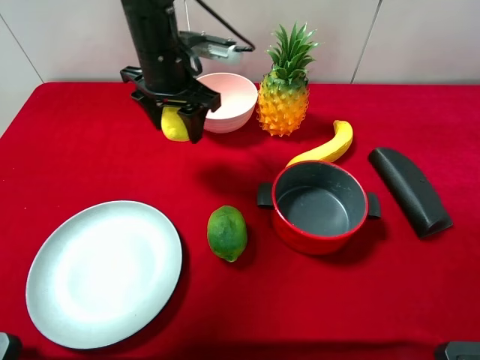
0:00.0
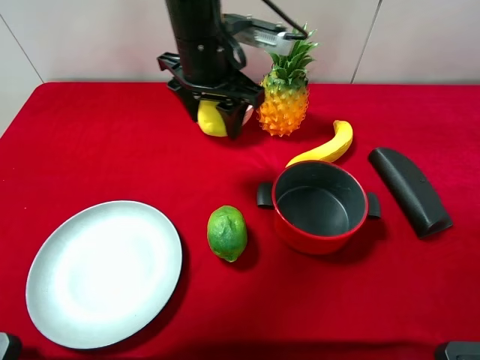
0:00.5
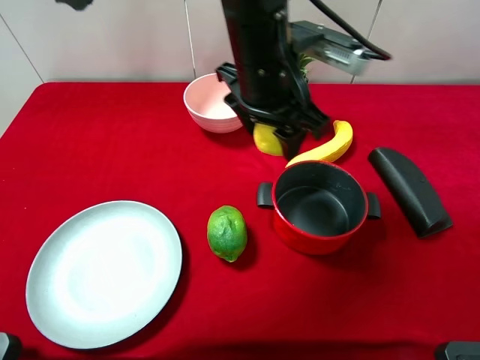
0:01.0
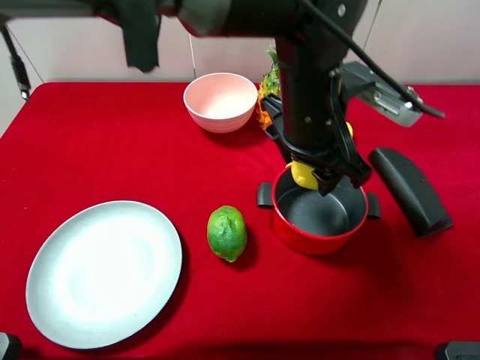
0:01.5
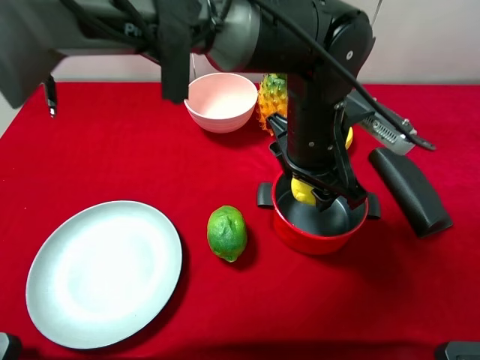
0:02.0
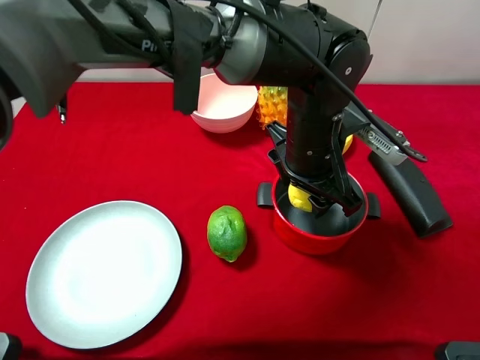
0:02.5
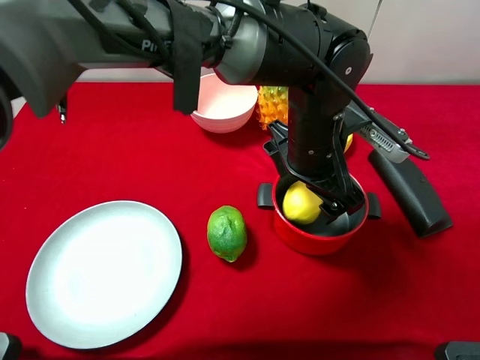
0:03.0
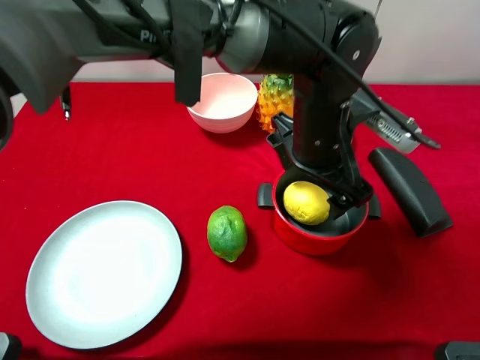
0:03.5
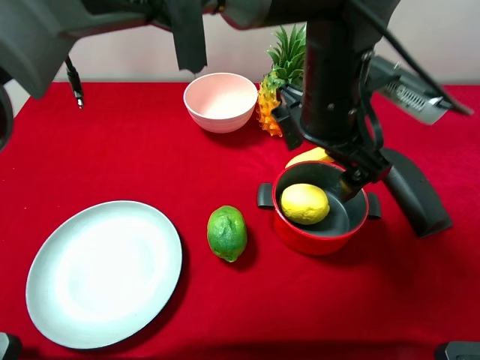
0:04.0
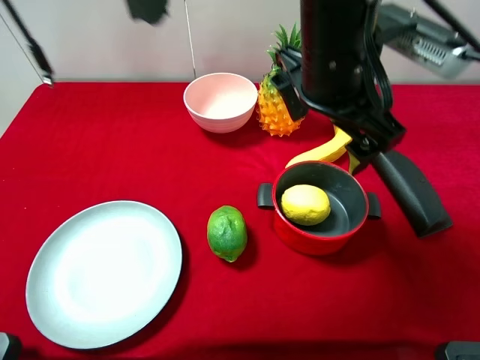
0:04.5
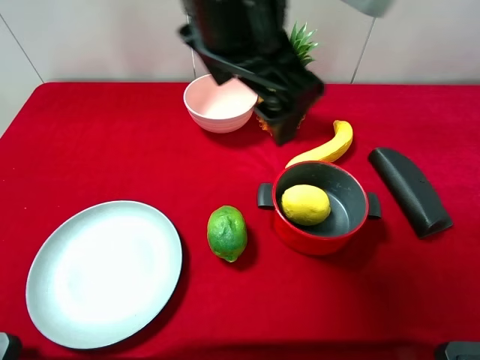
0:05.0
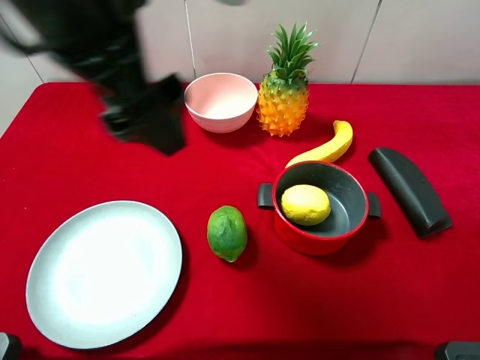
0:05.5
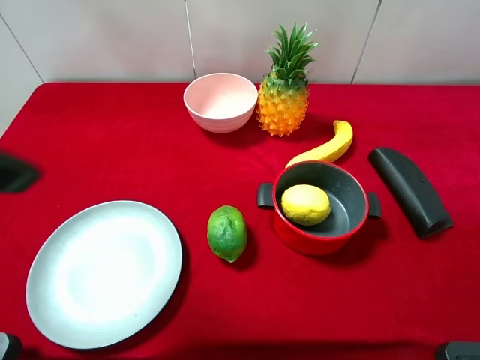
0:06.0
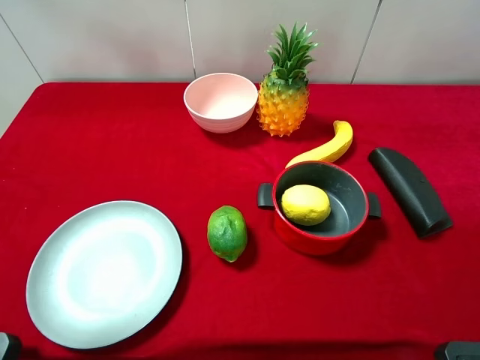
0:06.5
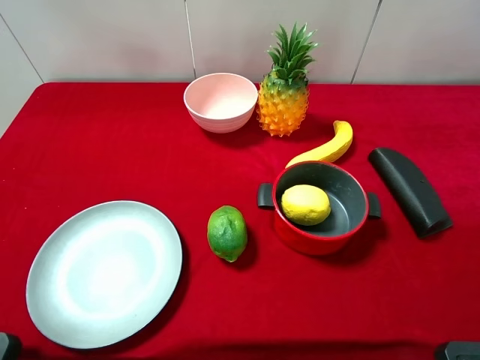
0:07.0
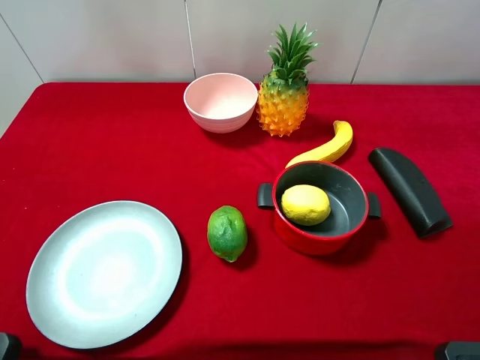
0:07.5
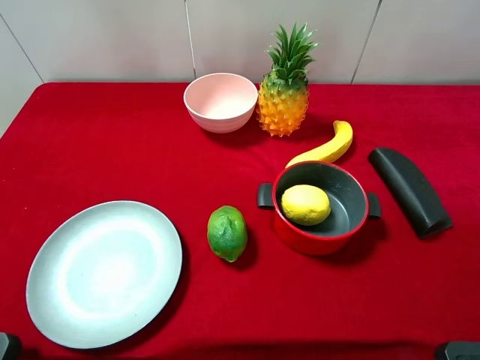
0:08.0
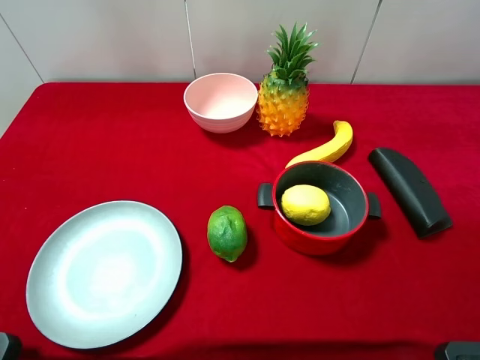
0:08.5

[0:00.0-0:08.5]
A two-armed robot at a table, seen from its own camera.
Task of the whole recording: pick up an item with a gripper and place it in a random container on the desktop.
0:00.0 to 0:02.0: The left gripper shifts about 20 cm to the right and backward.
0:02.0 to 0:04.0: The left gripper is displaced upward by approximately 5 cm, and opens up.
0:04.0 to 0:06.5: The left gripper heads to the left and backward, covering about 40 cm.

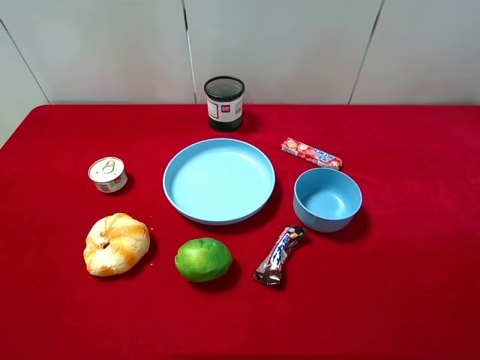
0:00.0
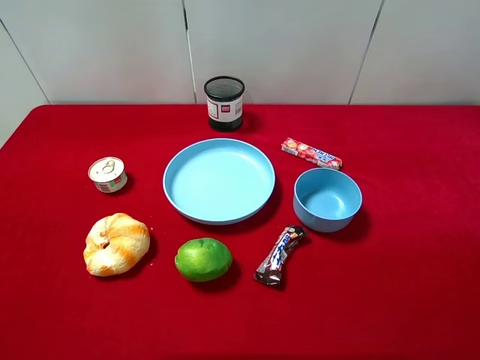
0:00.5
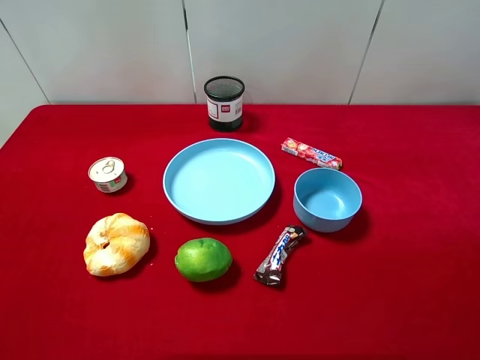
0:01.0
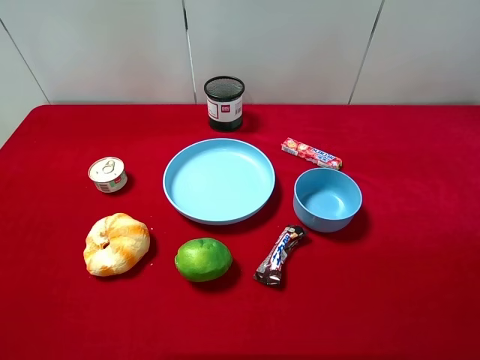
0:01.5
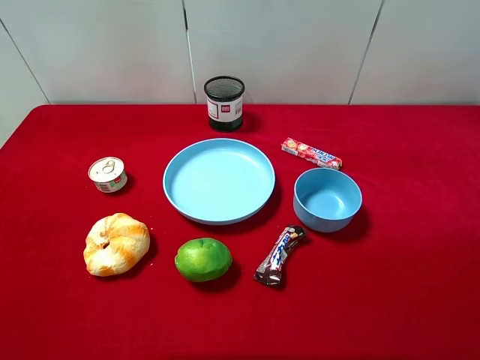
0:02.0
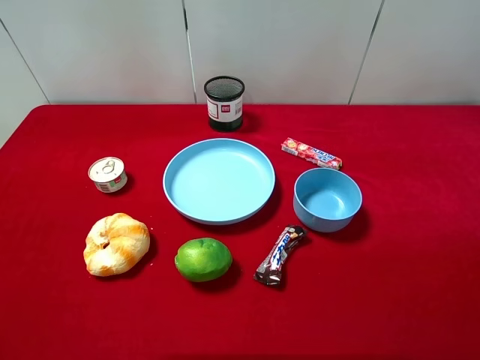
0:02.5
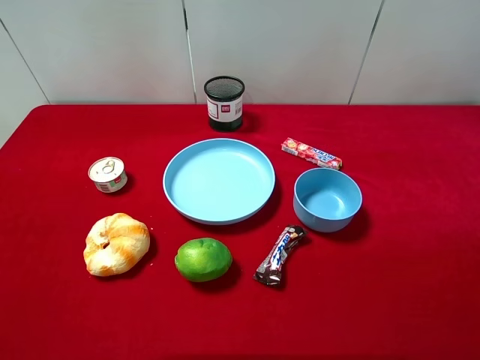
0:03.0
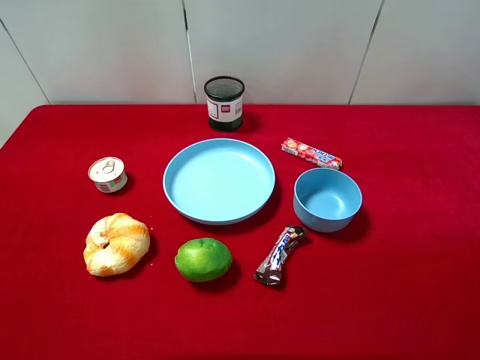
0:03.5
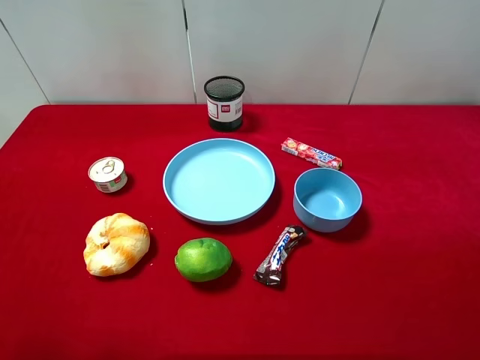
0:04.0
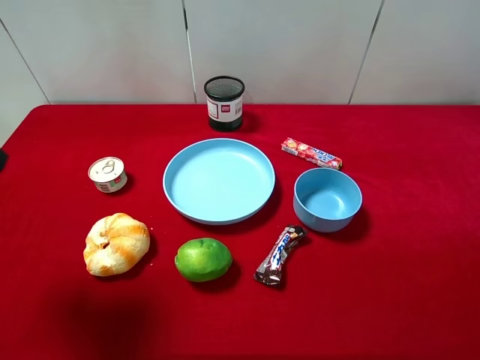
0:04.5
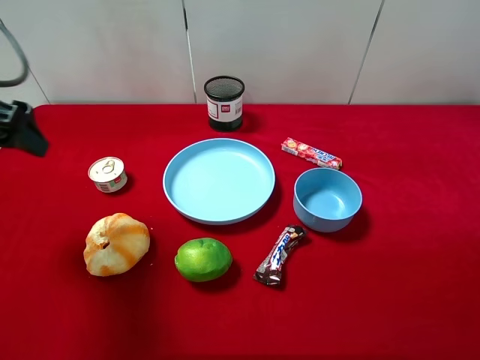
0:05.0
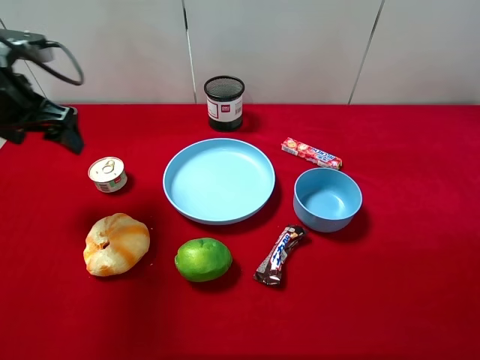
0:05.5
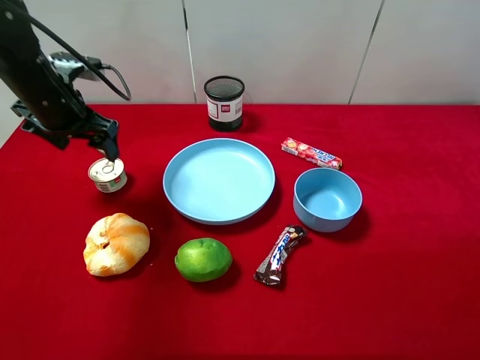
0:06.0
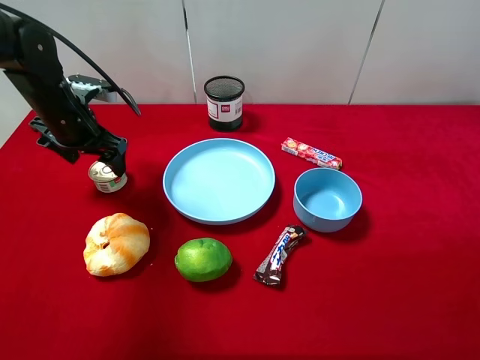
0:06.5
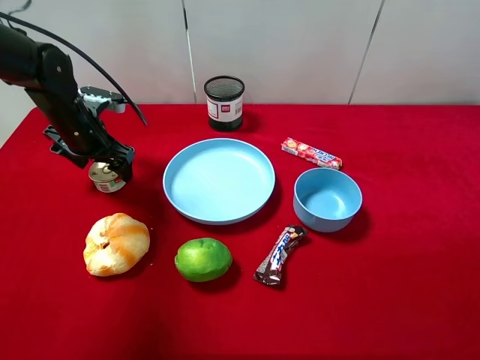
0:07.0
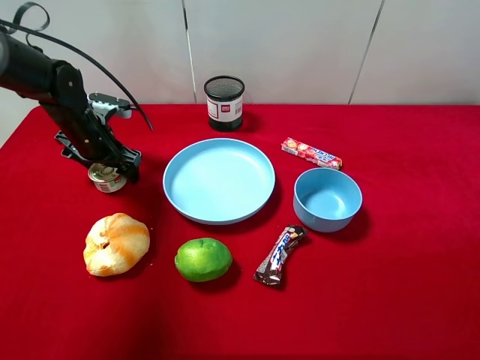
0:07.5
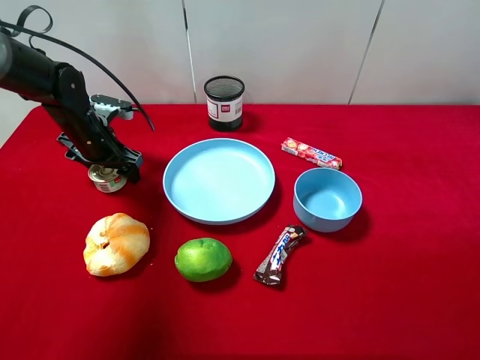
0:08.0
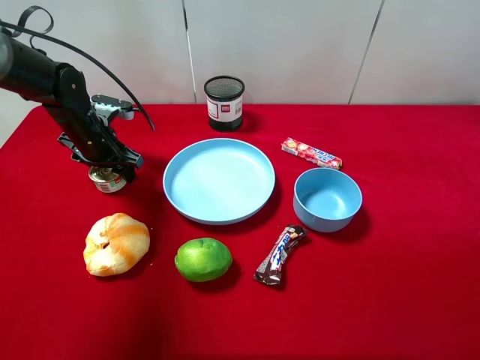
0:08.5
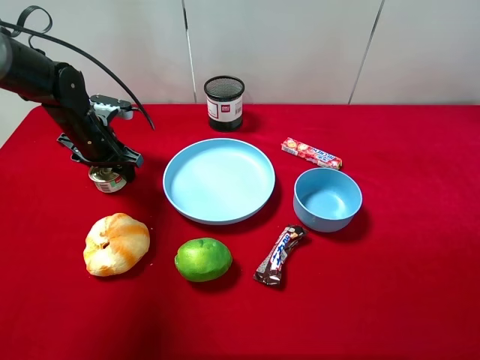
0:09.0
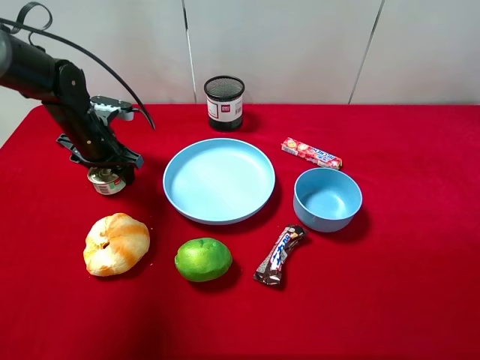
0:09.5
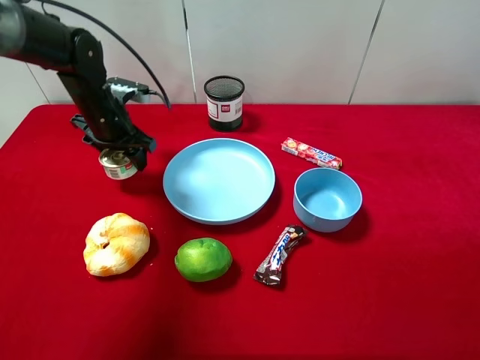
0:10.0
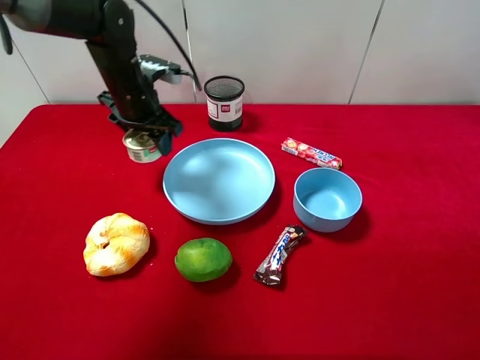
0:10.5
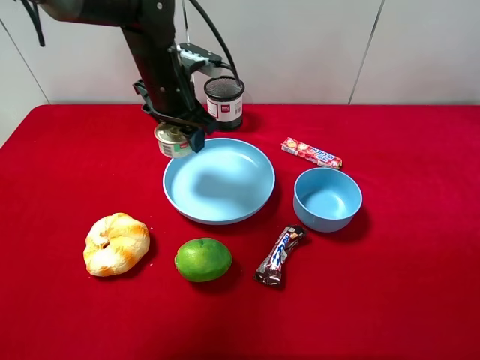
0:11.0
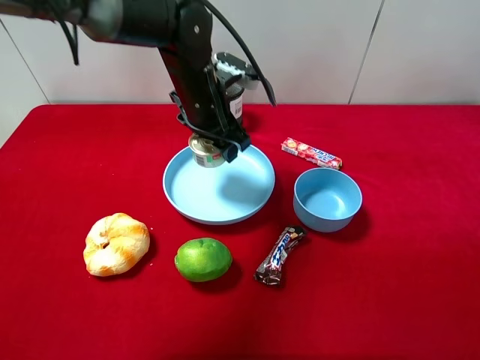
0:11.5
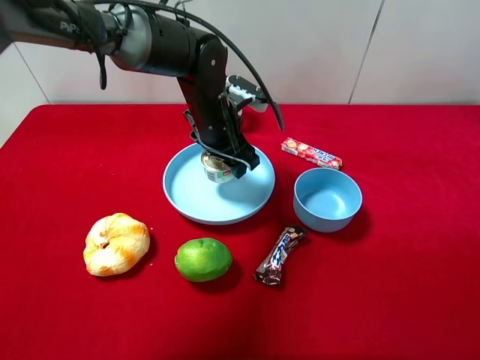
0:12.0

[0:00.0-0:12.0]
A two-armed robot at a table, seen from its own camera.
Task of the whole recording: pick up an item with a gripper and place it in a random container on the desktop.
0:00.0 to 0:02.0: The two grippers keep their place.
0:04.0 to 0:06.0: The left gripper goes roughly 30 cm forward.
0:06.0 to 0:08.0: The left gripper is displaced downward by about 10 cm.
0:08.0 to 0:10.0: The left gripper shifts by roughly 5 cm, and closes up.
0:10.0 to 0:12.0: The left gripper is displaced to the right by roughly 20 cm.

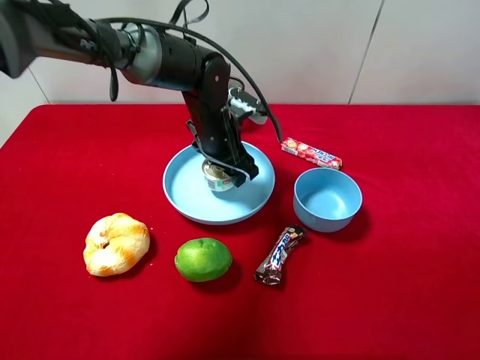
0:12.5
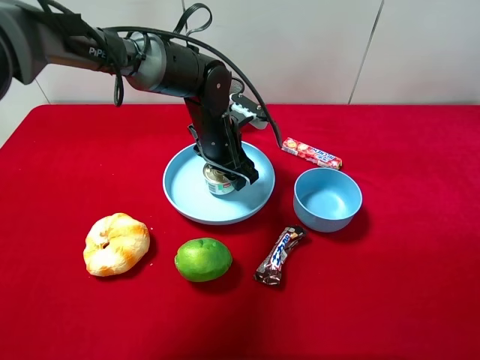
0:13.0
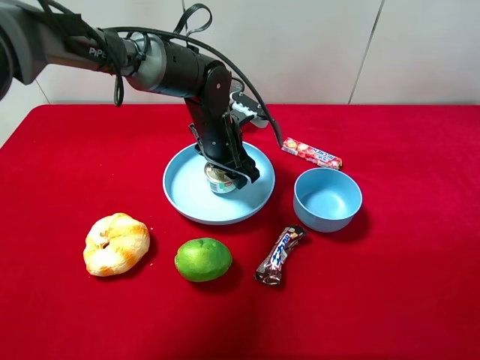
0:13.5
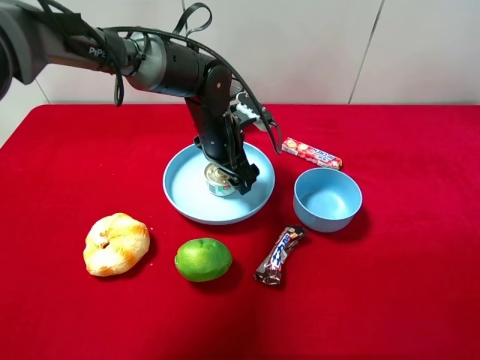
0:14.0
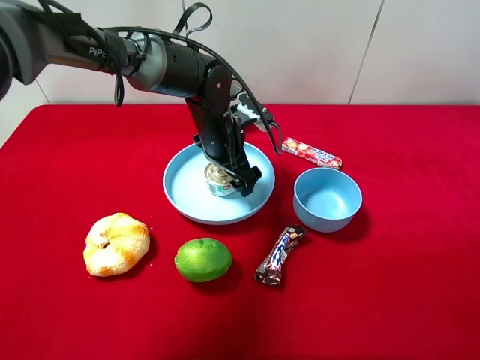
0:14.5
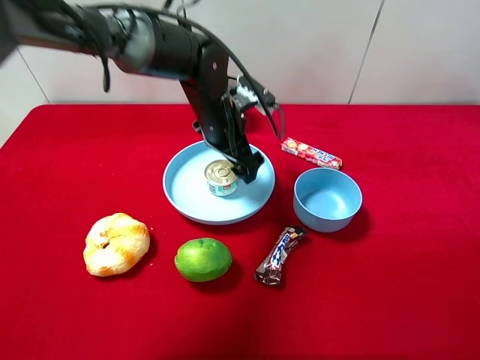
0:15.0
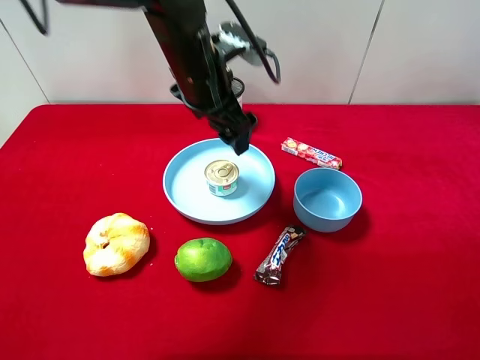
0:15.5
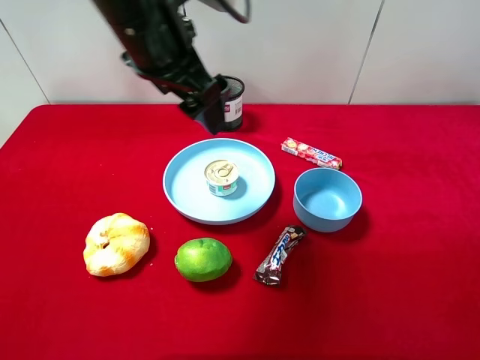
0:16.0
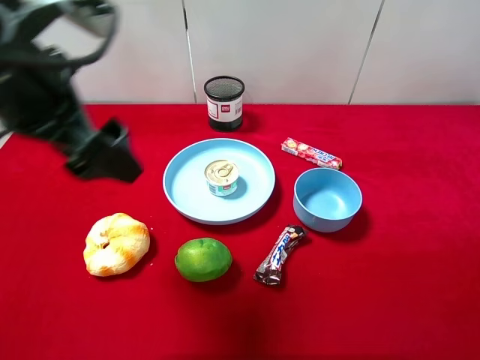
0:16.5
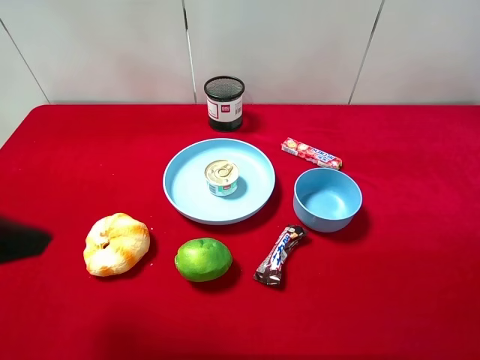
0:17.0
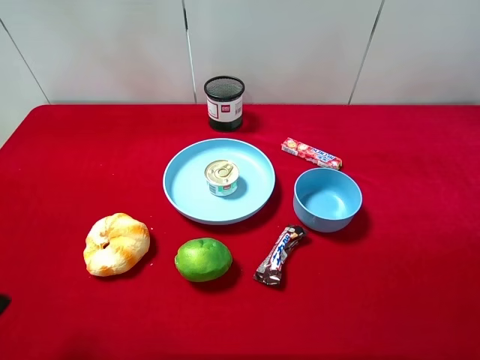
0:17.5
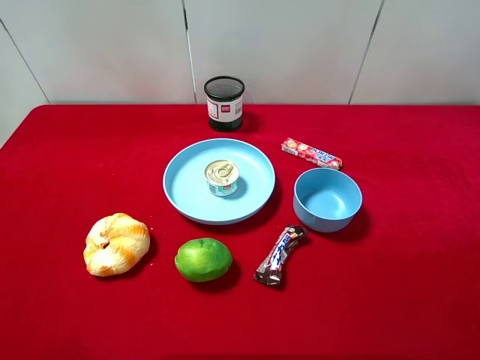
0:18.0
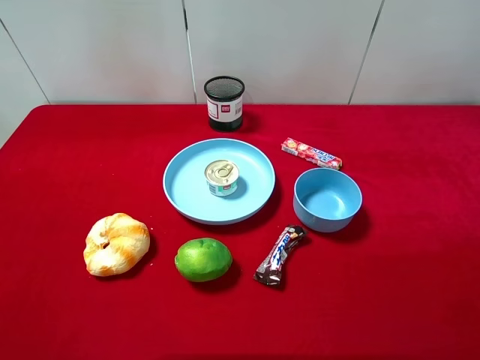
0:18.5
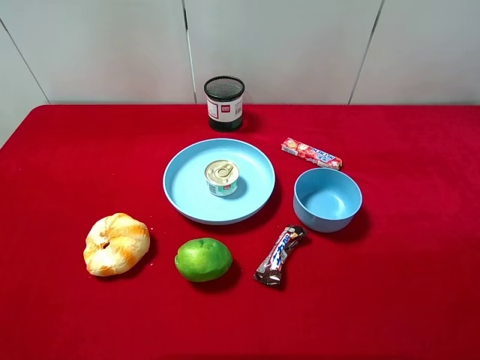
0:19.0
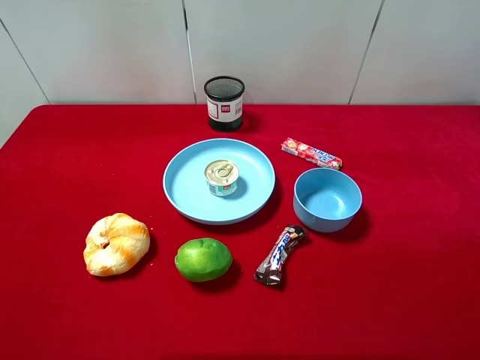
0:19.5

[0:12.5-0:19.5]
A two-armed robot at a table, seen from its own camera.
Task of the whole recording: pick up an item with a gripper and place it in a random container on the desktop.
0:12.5 to 0:14.5: The left gripper opens up.
0:14.5 to 0:16.0: The left gripper goes about 20 cm upward and backward.
0:16.0 to 0:17.5: The left gripper goes some 30 cm backward and to the left.
